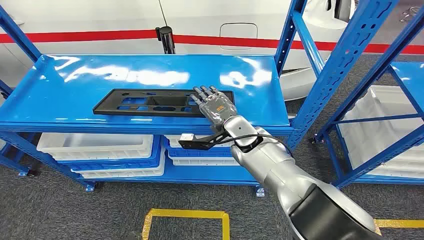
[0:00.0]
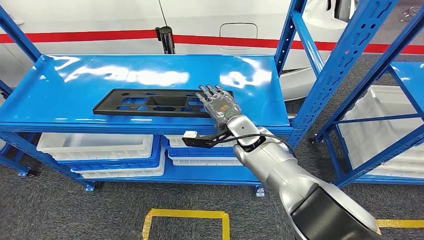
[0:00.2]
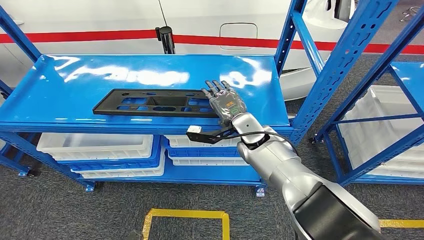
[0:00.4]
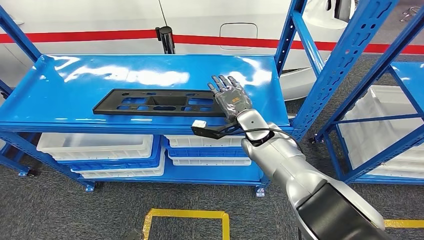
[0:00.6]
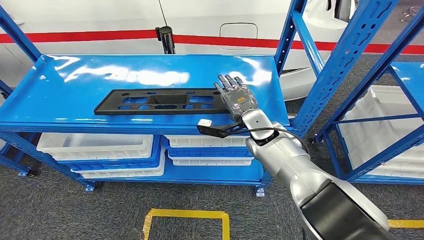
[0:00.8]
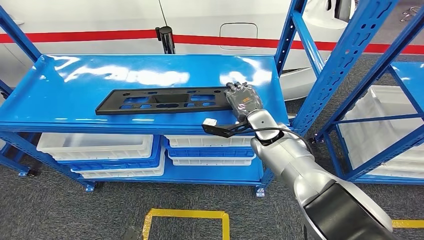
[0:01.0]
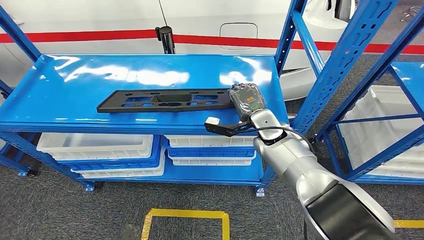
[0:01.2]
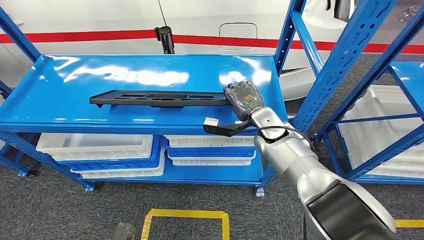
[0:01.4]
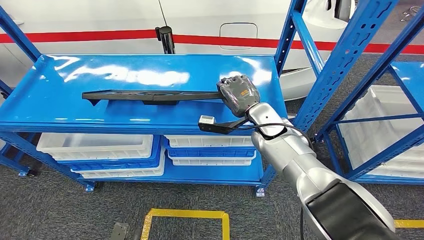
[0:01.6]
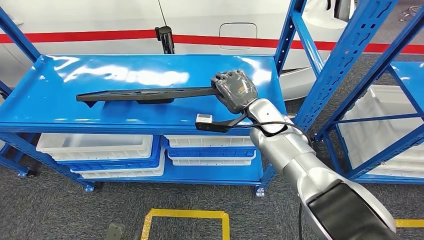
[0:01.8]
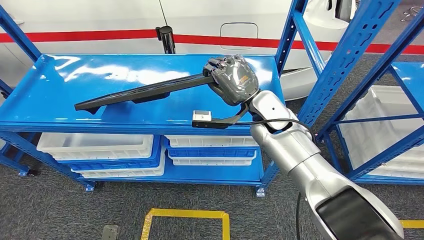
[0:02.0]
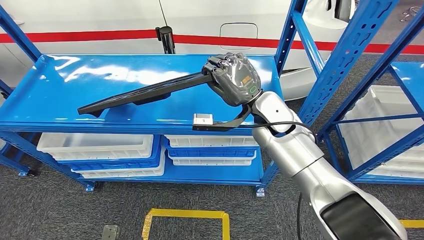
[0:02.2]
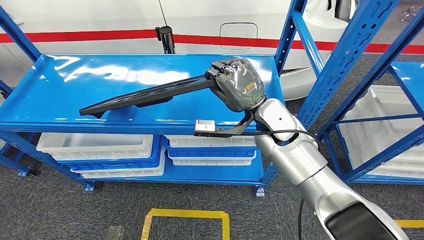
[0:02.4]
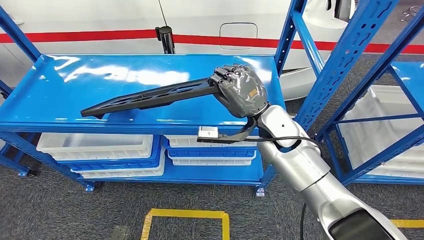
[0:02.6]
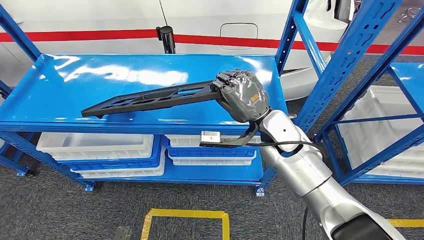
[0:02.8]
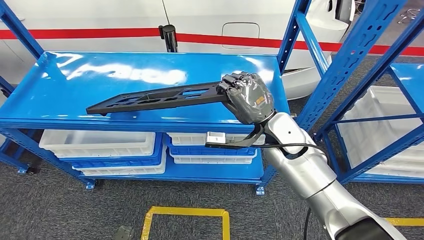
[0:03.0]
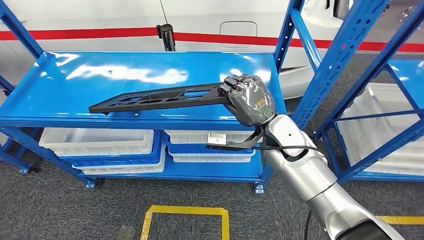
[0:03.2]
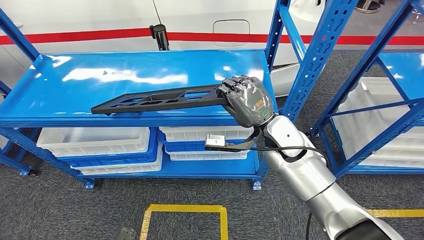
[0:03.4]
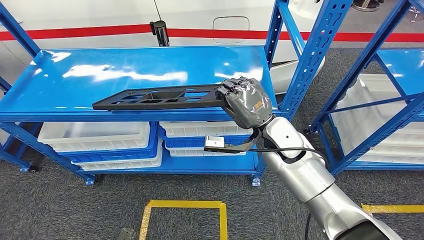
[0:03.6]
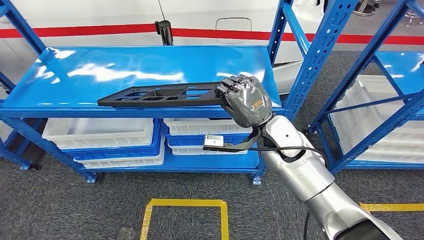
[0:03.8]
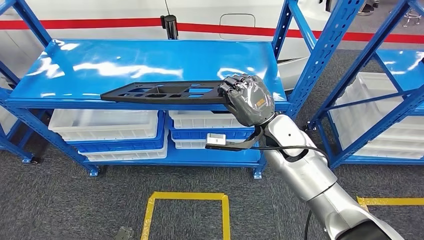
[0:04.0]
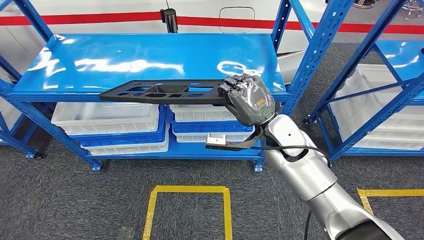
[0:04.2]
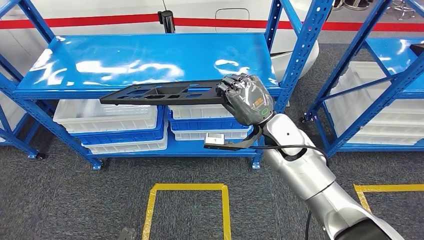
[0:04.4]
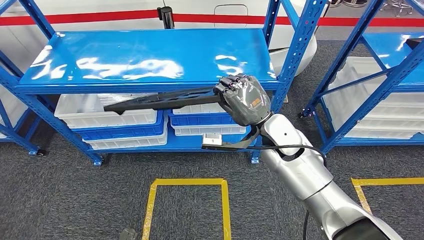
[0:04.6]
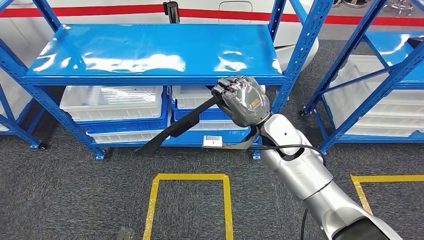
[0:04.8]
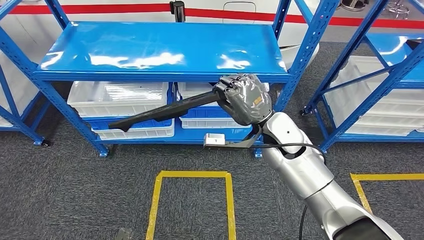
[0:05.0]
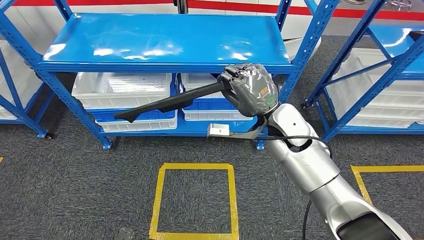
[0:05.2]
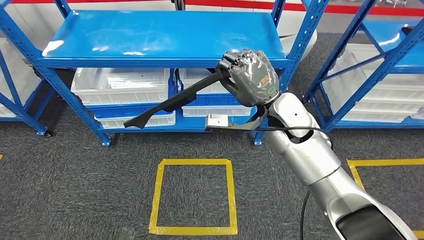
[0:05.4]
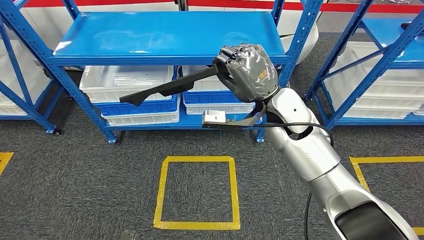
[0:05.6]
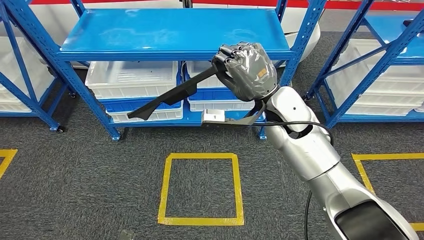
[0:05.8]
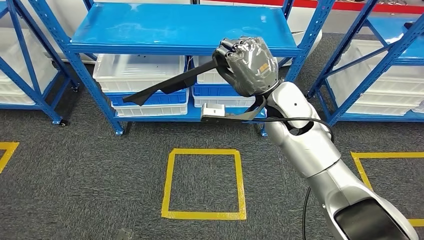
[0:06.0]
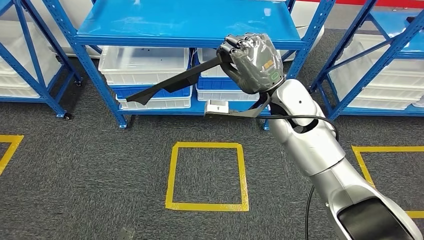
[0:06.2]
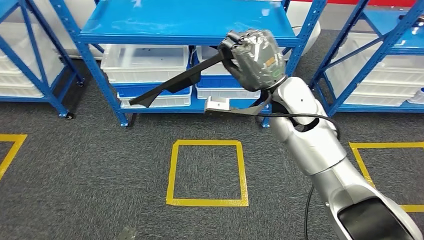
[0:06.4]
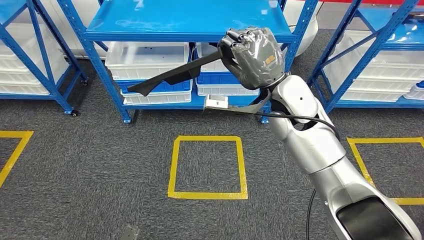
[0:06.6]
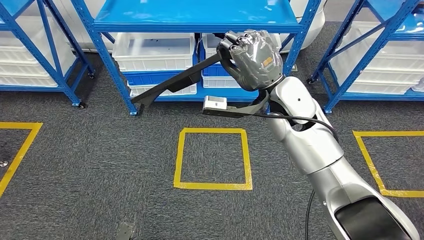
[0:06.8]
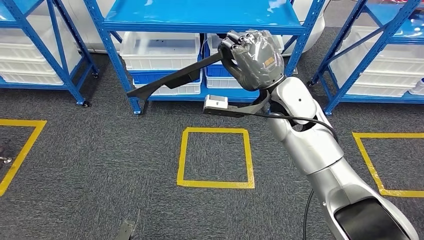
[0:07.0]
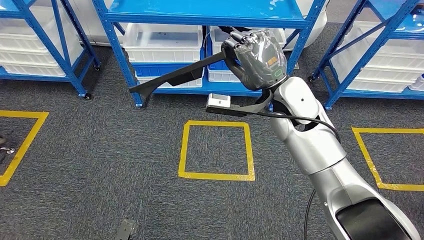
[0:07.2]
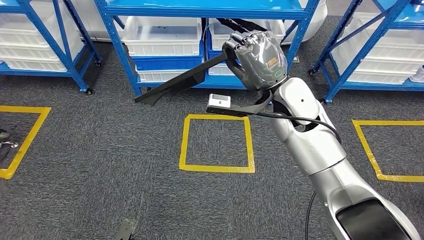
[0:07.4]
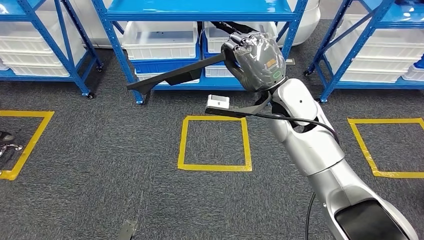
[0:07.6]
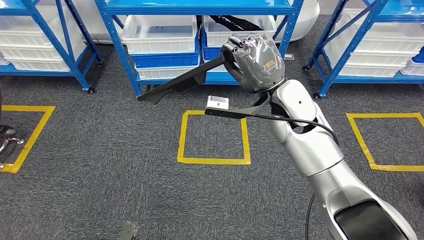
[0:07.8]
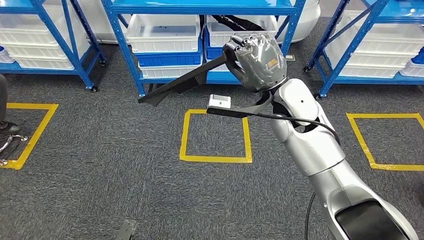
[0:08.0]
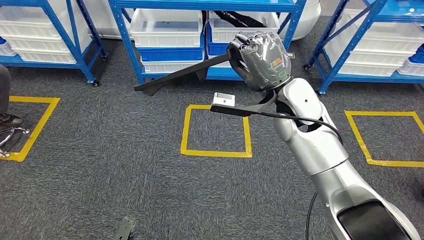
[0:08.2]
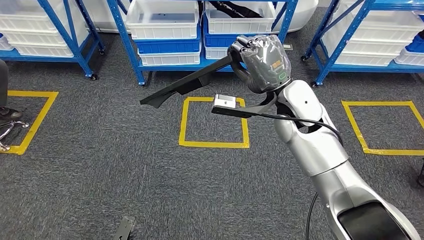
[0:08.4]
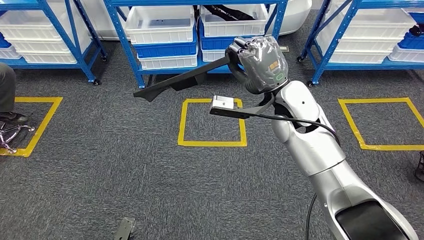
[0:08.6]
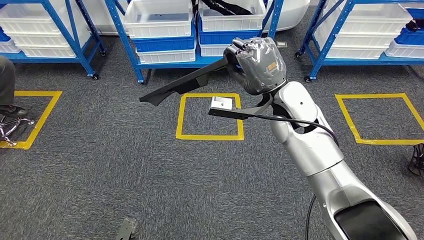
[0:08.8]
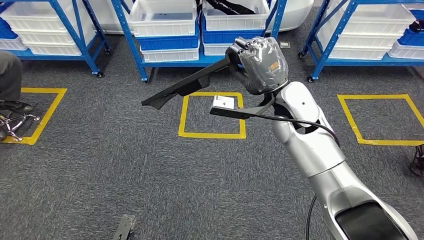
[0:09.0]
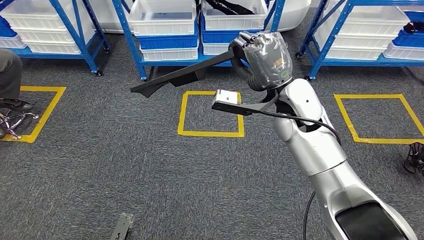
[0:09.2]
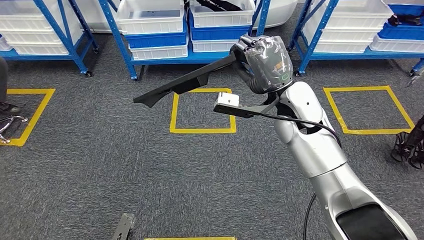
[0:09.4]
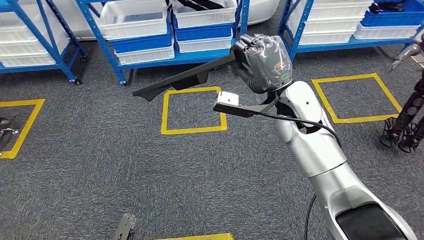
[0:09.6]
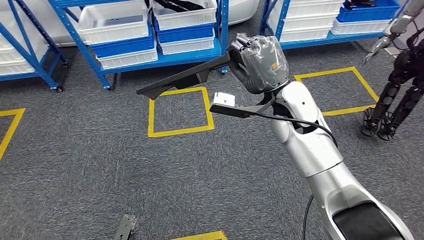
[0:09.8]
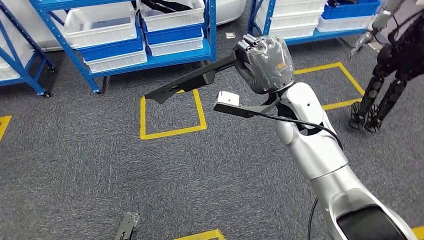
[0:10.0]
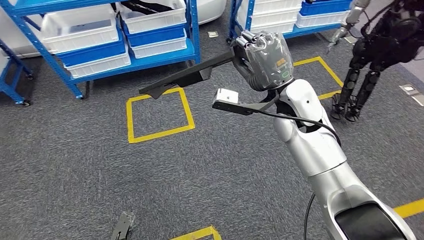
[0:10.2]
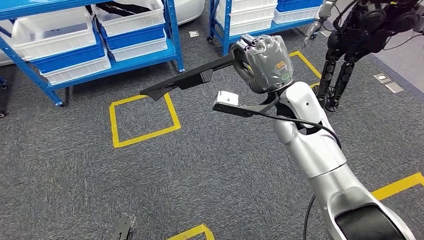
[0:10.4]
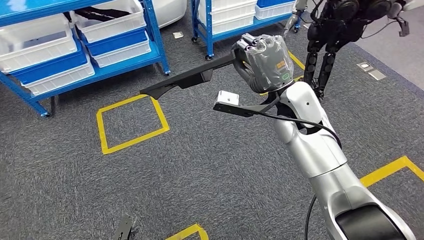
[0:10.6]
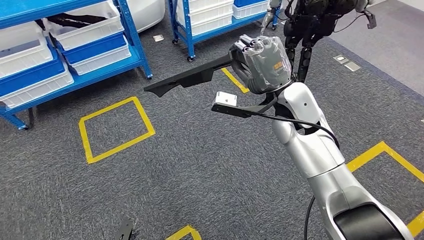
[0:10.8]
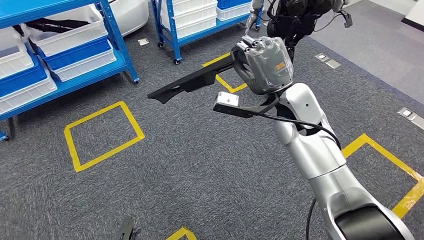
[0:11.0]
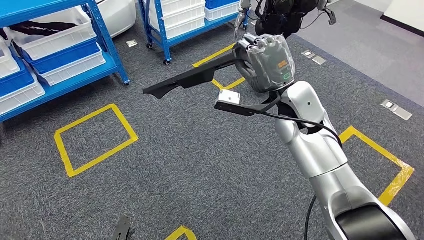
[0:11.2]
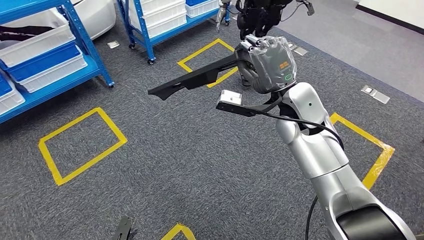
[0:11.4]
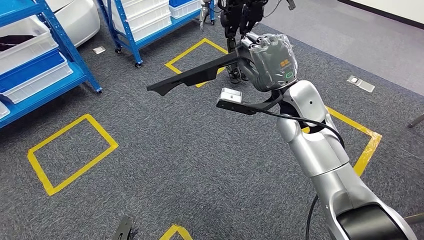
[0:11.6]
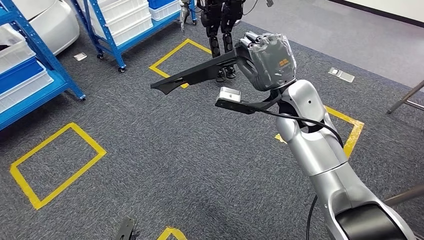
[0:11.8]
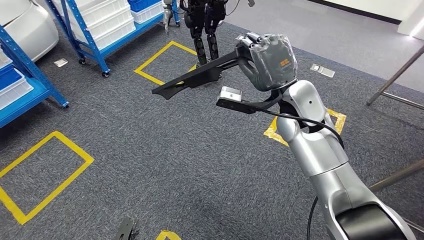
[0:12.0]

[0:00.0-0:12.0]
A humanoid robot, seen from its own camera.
Step, 0:00.0 to 0:06.4: Pick up the large material from the shelf.

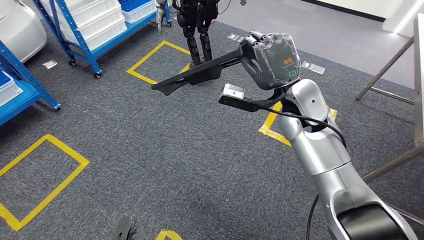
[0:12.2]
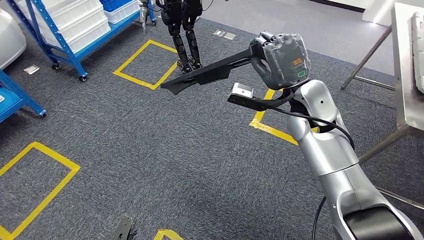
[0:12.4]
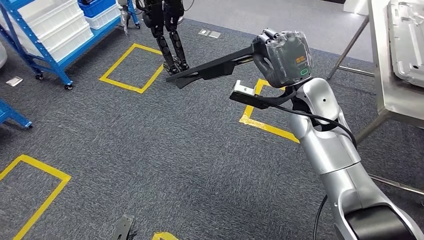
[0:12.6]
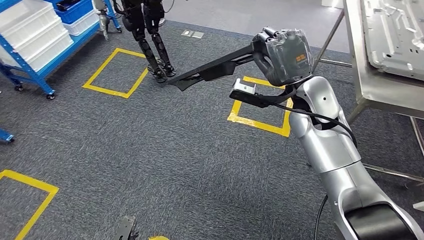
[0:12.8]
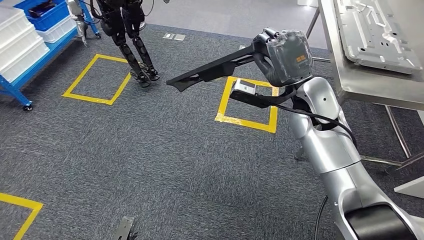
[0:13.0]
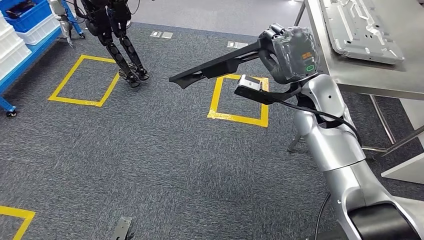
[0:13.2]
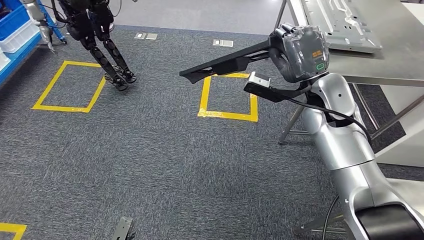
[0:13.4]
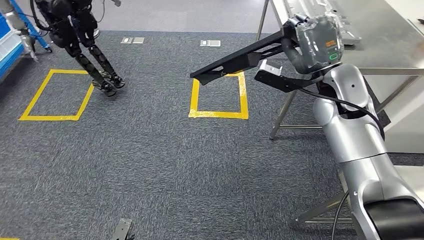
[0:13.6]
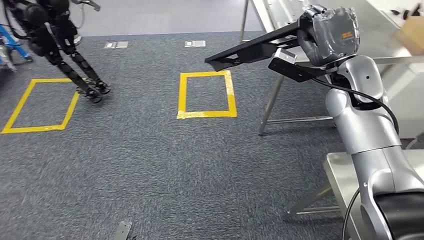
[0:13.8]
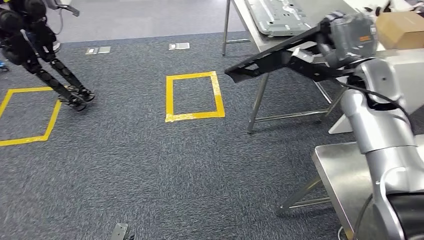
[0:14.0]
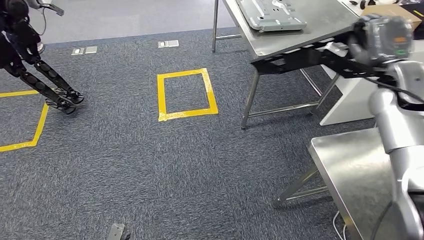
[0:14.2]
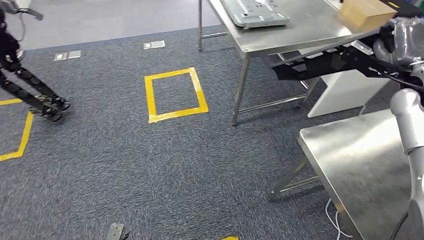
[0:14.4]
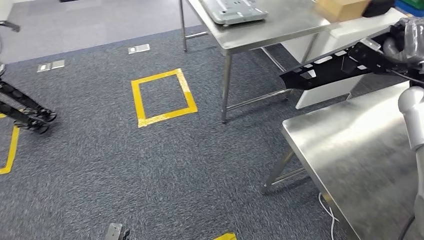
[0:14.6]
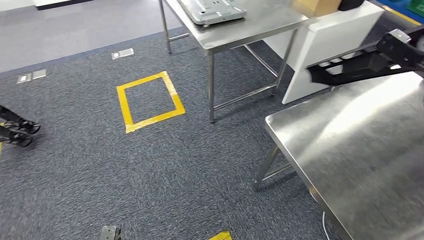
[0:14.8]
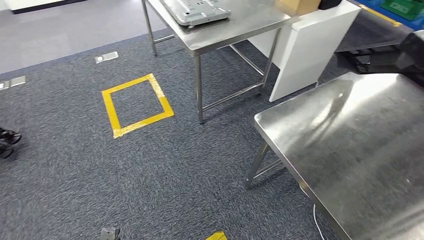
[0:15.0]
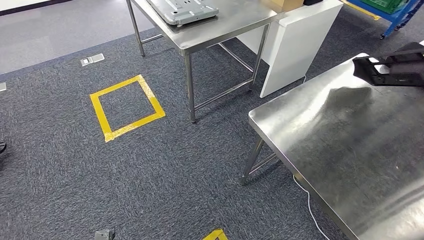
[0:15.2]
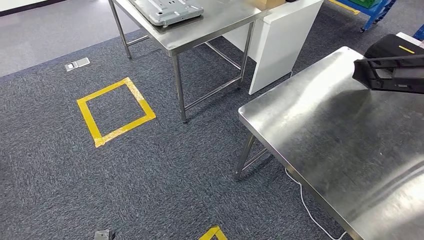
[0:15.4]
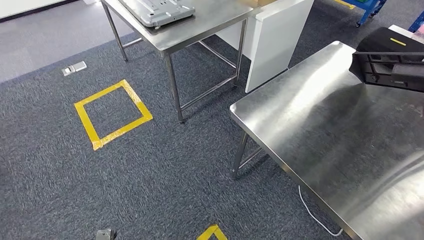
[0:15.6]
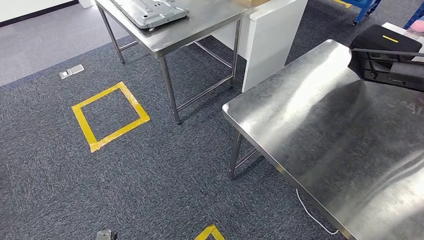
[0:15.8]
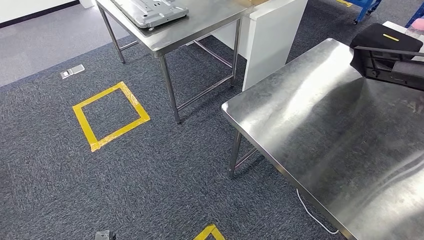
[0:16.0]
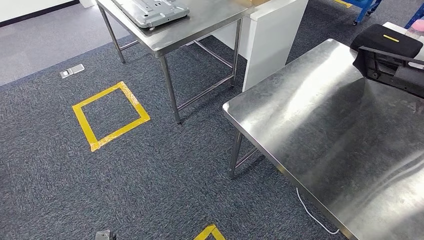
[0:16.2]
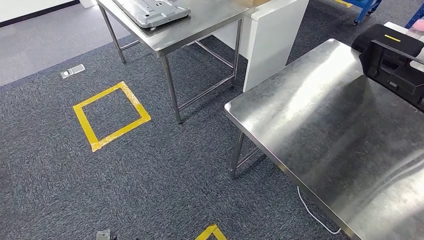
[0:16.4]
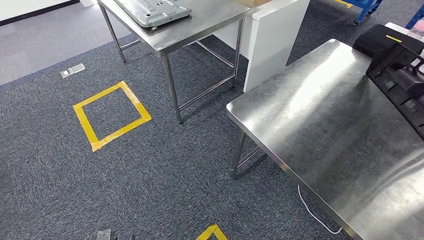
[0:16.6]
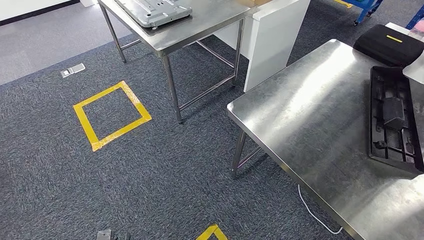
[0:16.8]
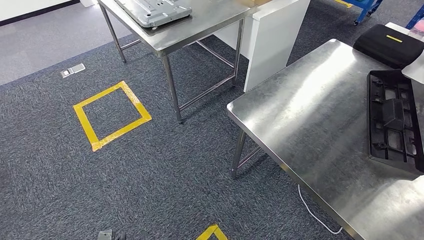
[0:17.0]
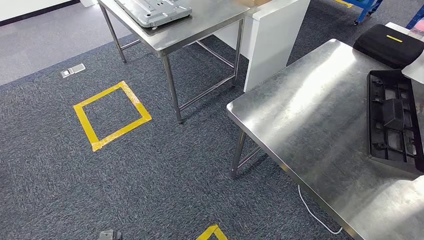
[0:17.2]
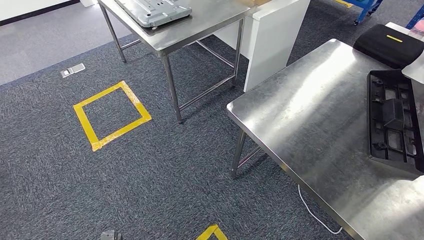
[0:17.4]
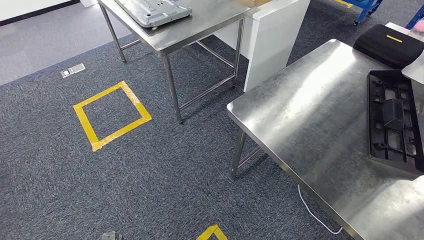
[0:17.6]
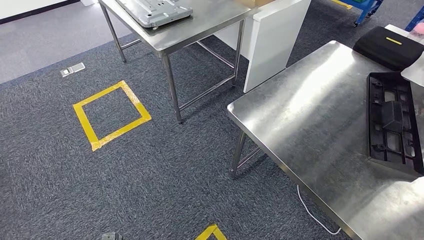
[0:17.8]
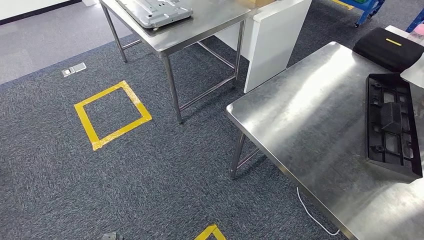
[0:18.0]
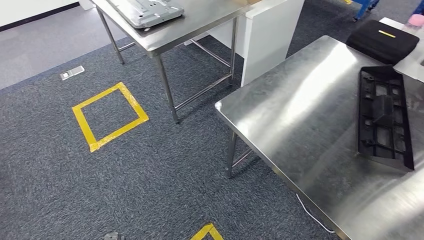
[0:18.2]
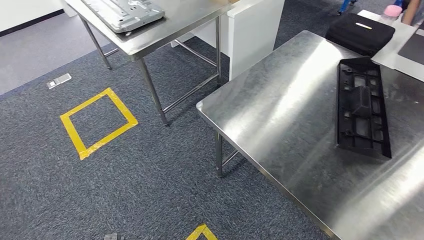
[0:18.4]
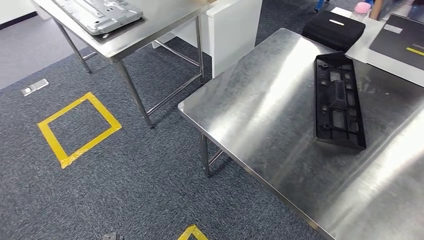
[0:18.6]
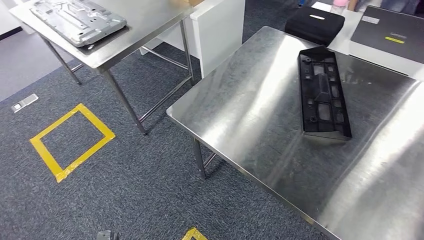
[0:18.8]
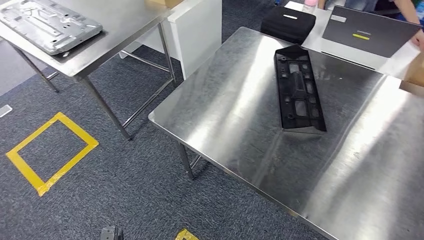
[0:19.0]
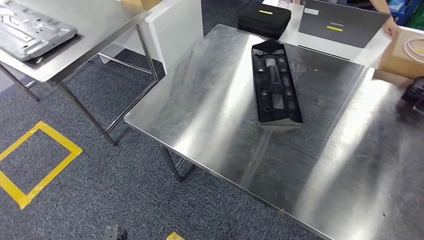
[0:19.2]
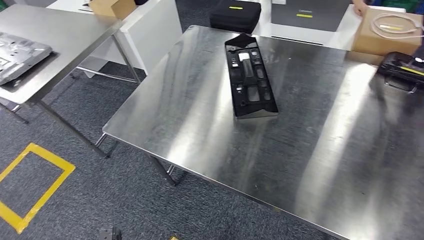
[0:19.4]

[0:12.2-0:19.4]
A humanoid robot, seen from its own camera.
Step, 0:14.0 to 0:17.2: Insert the large material into the corresponding slot on the workbench.
0:16.6 to 0:18.0: The hands make only small movements.
